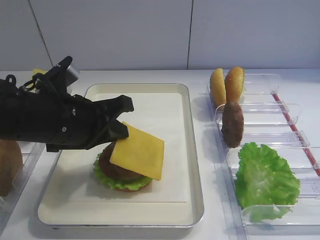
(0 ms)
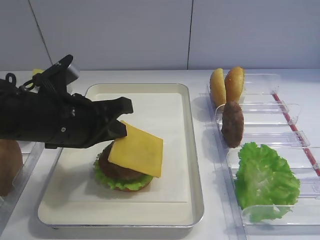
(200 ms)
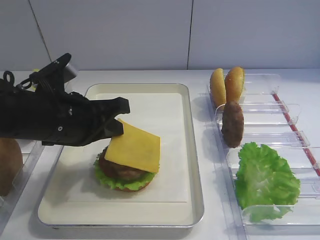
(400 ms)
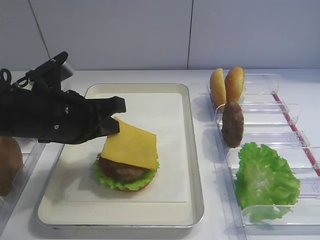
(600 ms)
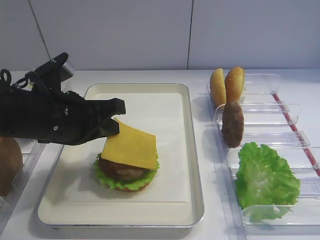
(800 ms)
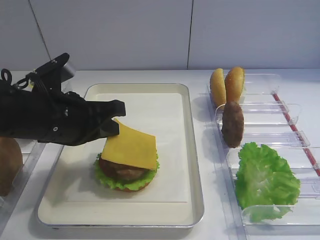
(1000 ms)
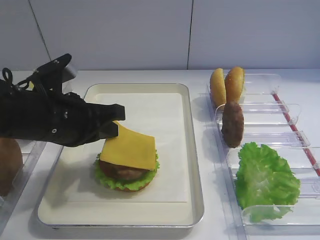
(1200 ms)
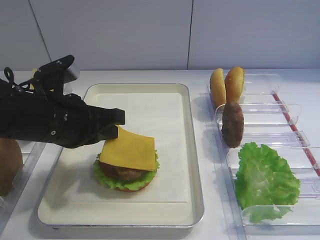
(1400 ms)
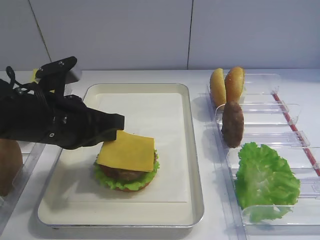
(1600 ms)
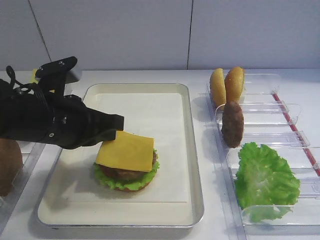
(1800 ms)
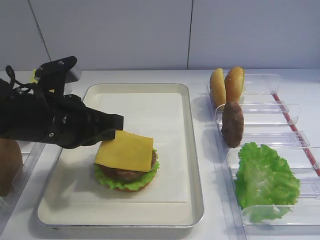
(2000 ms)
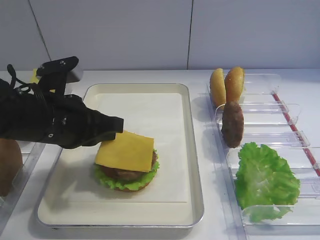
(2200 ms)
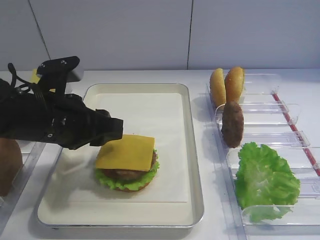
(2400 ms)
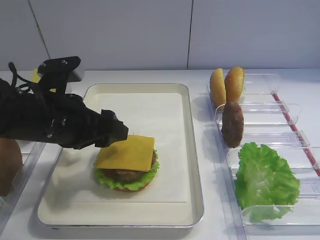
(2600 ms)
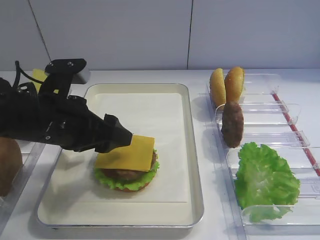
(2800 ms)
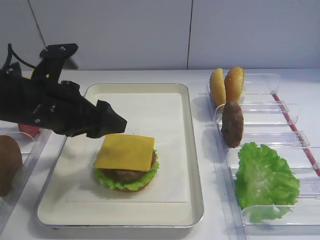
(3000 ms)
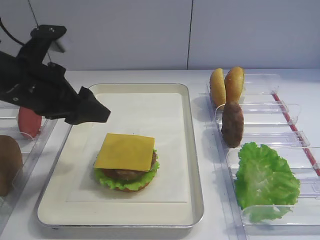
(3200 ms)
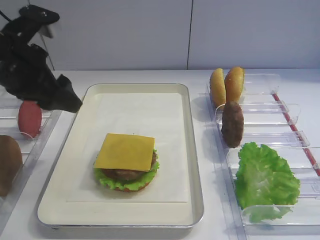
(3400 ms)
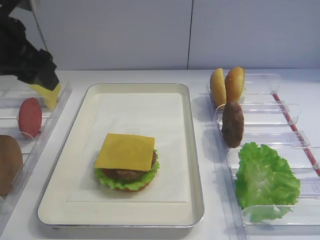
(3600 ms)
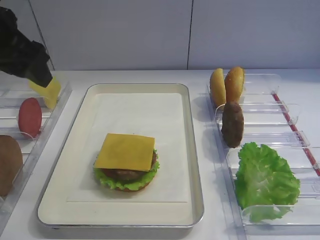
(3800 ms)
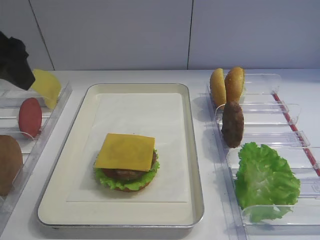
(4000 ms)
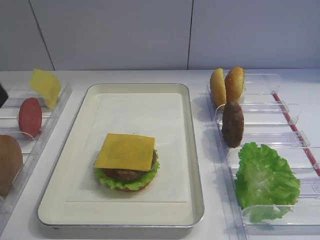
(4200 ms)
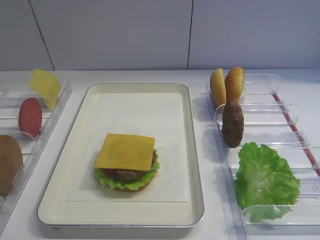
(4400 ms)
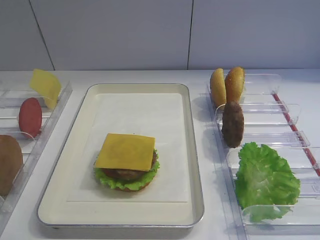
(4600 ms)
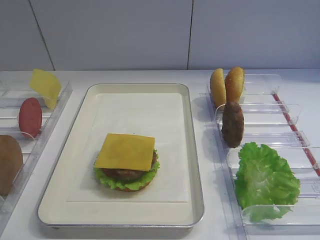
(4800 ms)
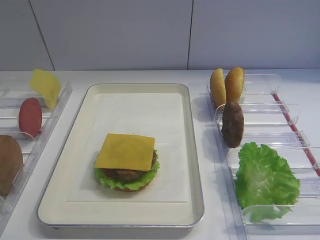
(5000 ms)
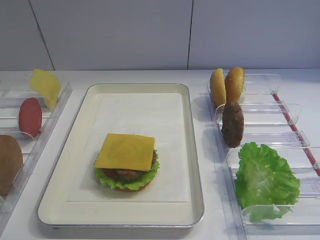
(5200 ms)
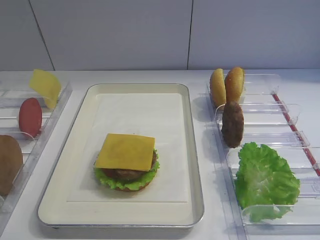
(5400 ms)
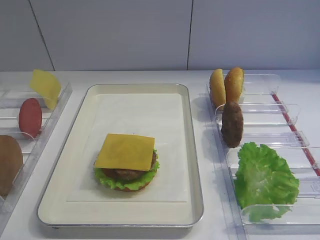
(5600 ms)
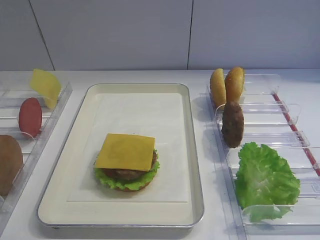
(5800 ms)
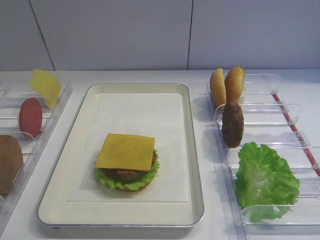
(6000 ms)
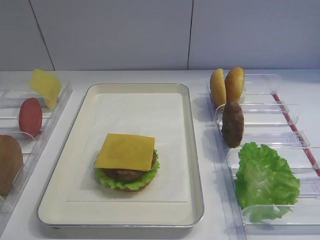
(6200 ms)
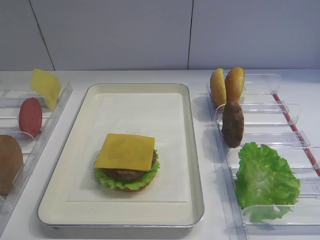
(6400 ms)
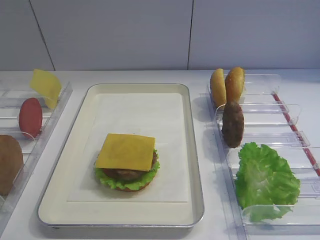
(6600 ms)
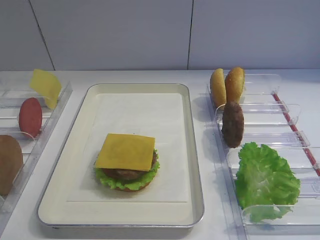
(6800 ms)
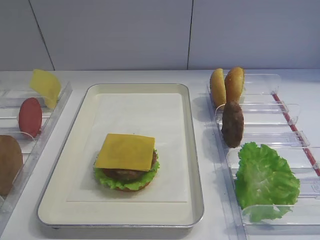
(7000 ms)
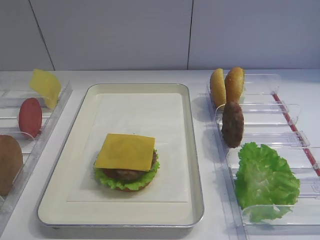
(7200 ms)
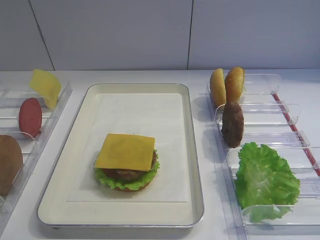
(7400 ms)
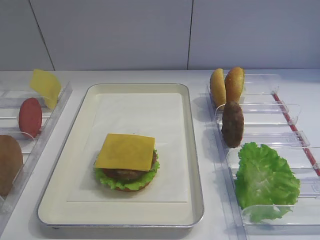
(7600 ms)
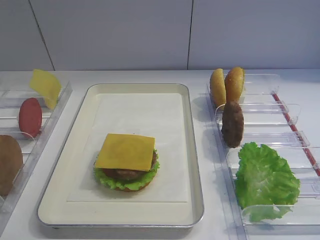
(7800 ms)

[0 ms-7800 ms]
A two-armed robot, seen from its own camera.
Step, 0 ms to 3200 ms: Place the cheese slice on the cutlet with the left gripper.
0 ms to 1600 ms: The grippers stay close to where they were, moving slightly.
1600 ms to 3200 ms: The left gripper moves approximately 5 cm, and opens.
3200 ms to 4600 ms: The left gripper moves backward, to the left and upward, about 25 cm.

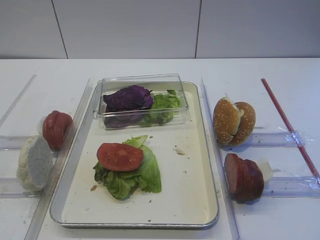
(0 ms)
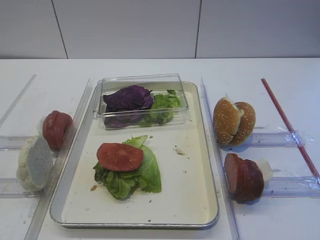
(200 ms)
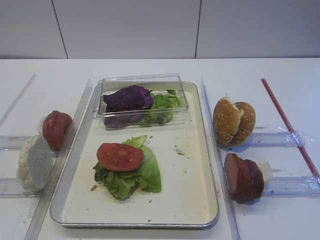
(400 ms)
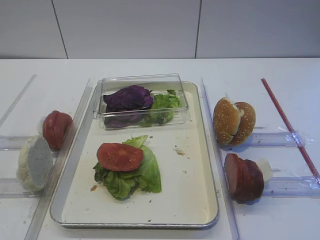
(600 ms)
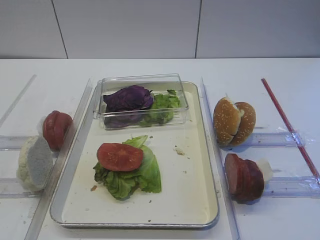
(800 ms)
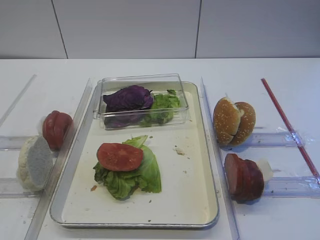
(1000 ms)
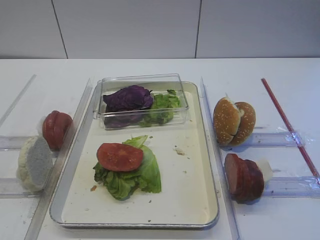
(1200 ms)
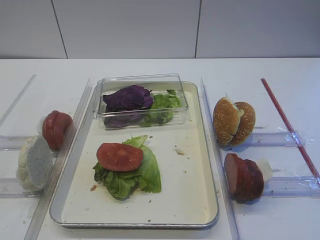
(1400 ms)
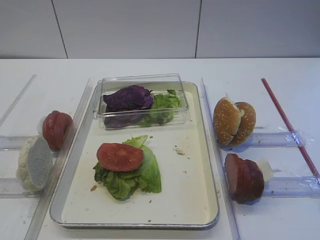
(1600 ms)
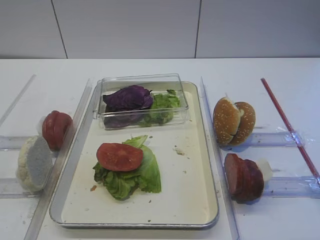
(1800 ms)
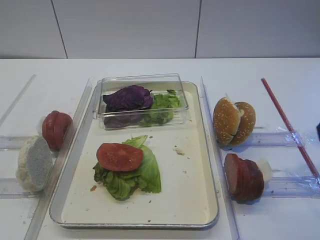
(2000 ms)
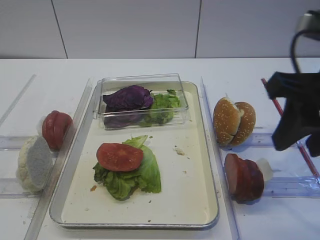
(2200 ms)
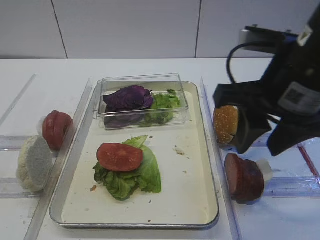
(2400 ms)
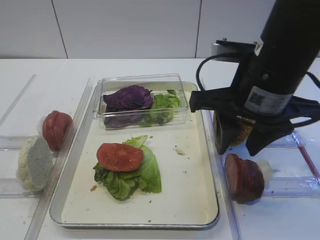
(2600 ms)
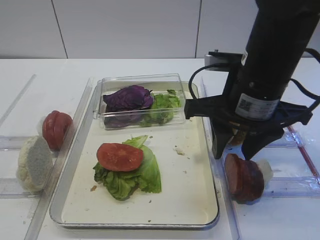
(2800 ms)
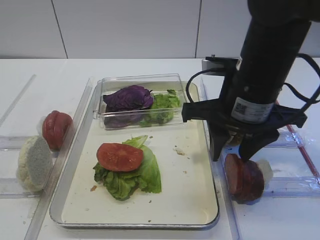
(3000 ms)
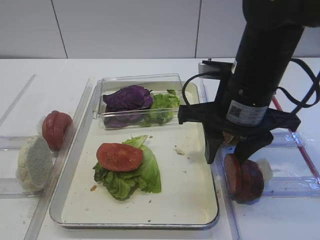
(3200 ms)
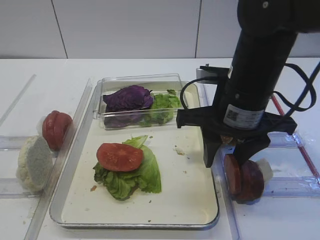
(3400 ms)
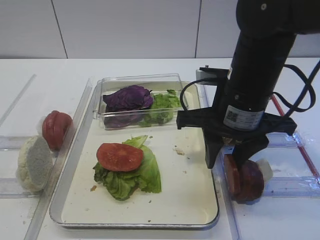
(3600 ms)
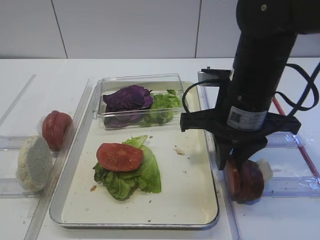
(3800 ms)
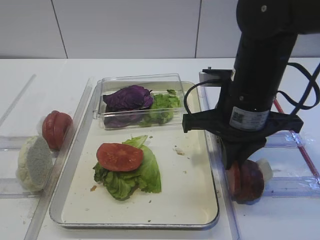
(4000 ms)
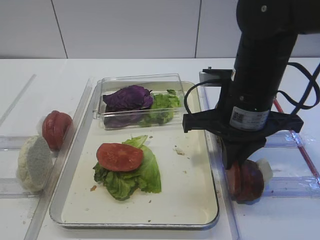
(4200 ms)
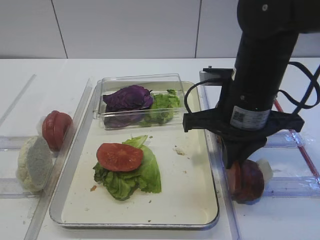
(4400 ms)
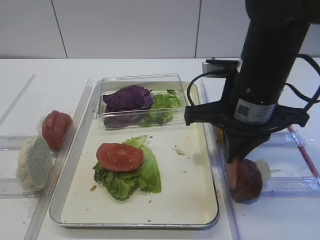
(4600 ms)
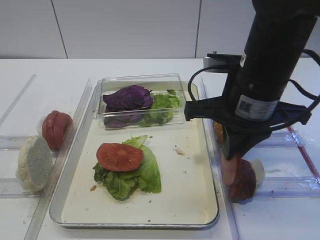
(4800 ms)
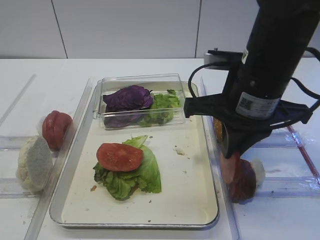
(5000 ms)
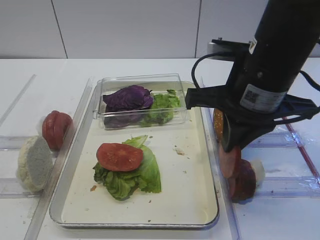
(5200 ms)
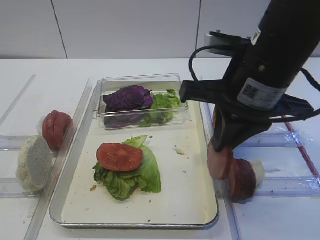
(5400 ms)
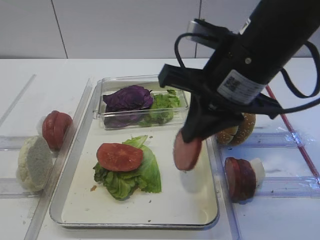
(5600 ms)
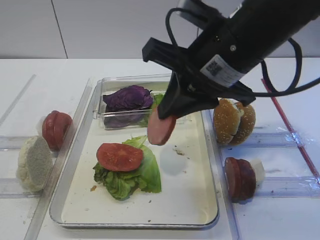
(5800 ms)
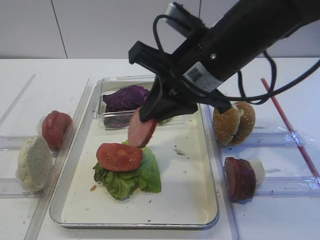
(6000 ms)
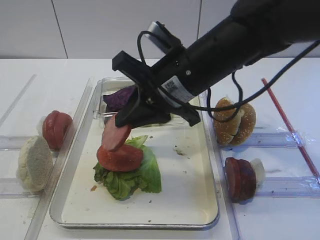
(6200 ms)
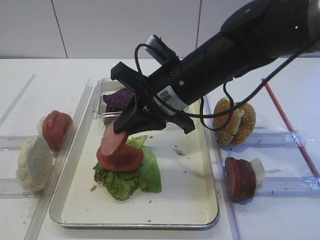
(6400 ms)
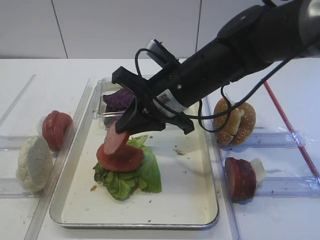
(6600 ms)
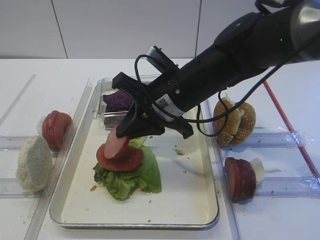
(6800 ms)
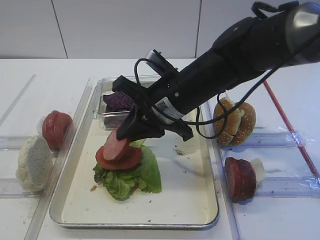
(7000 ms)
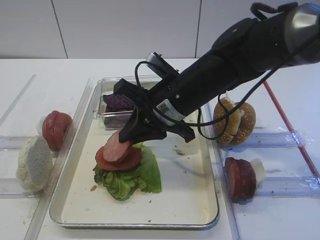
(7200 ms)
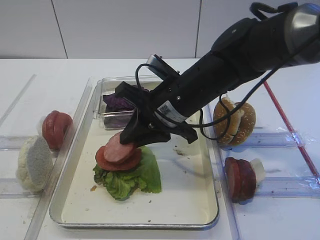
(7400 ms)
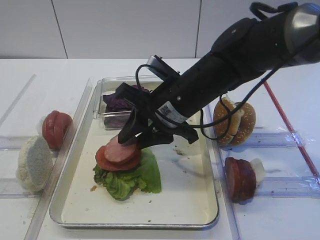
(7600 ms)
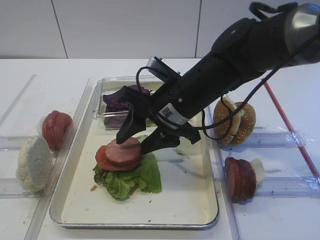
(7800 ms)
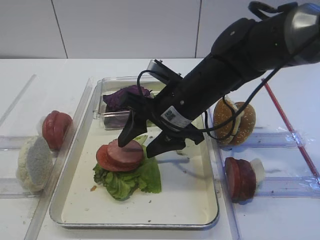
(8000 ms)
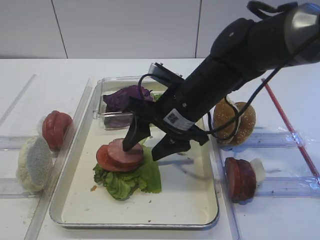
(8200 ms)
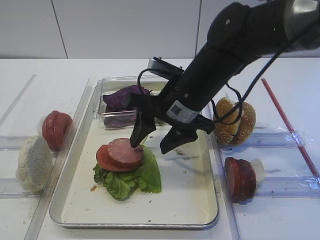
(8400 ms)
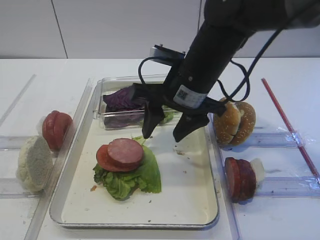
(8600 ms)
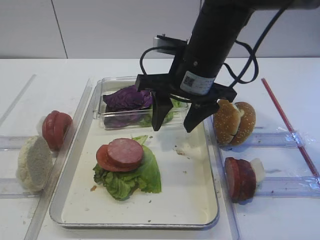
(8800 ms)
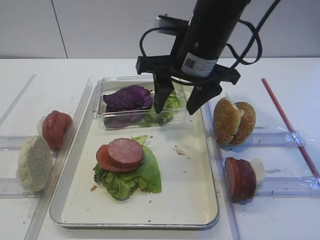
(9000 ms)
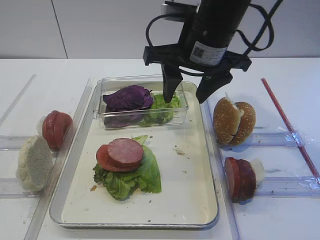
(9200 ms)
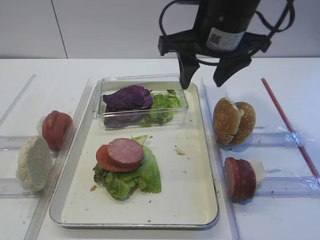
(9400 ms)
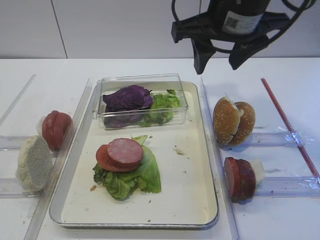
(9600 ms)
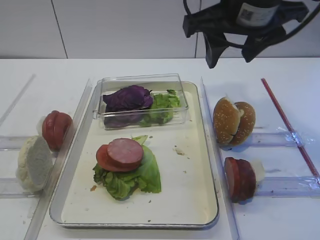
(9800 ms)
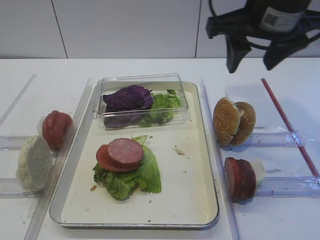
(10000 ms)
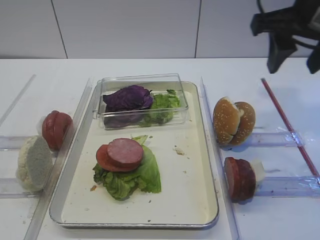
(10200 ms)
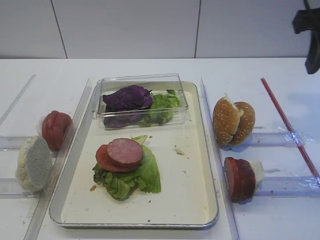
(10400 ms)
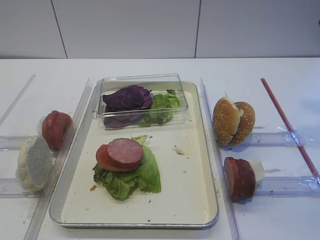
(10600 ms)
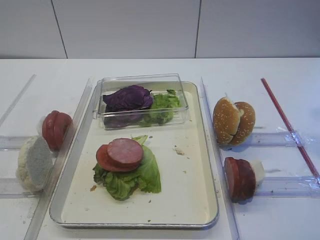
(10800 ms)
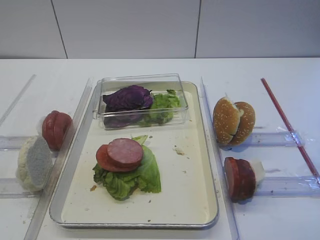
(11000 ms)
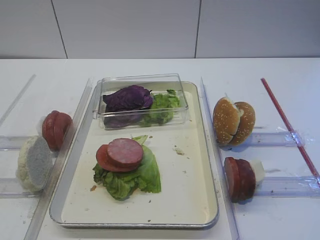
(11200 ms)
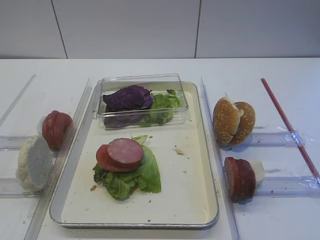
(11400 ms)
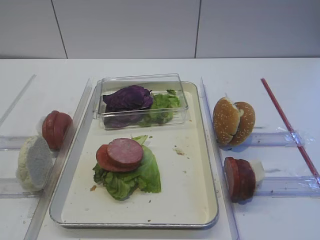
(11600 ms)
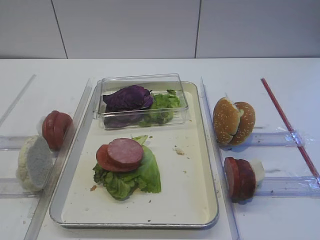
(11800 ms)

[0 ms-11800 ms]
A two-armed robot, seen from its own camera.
Step, 0 ms to 5000 ms: Pick up the cutlet with the right gripper.
Step, 5200 ms to 9000 ms: Place the cutlet on the tomato slice with the right gripper.
1400 ms to 3000 ms: The right gripper moves forward and to the left, about 25 cm.
3000 ms to 4400 ms: The right gripper closes its fingers.
4400 ms to 6000 ms: The right gripper goes some 5 cm upward.
6000 ms to 7400 ms: The right gripper heads downward, covering some 10 cm.
7400 ms to 8800 ms: The right gripper moves approximately 5 cm, and opens.
8800 ms to 10400 ms: The right gripper travels to the right and upward by approximately 20 cm.
10400 ms to 11800 ms: The right gripper is displaced backward by approximately 20 cm.

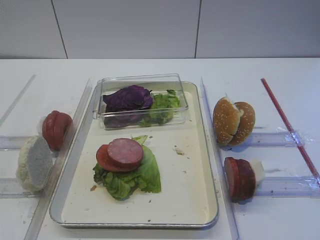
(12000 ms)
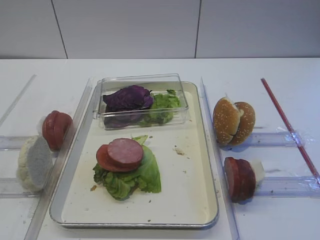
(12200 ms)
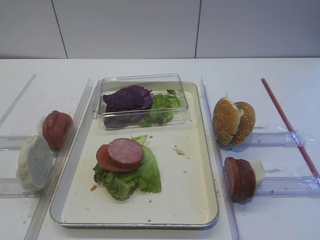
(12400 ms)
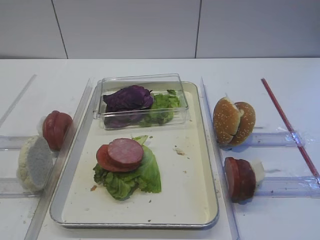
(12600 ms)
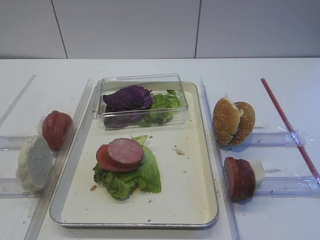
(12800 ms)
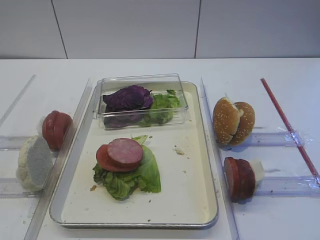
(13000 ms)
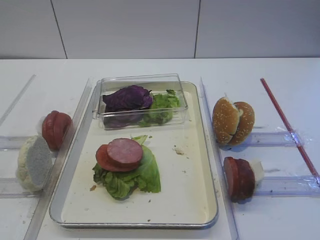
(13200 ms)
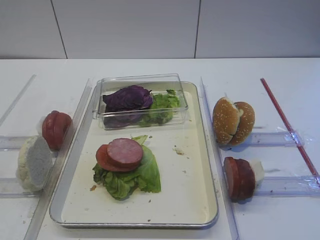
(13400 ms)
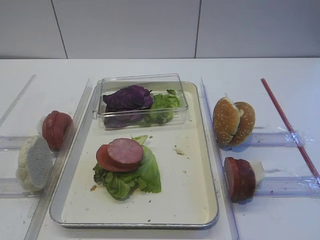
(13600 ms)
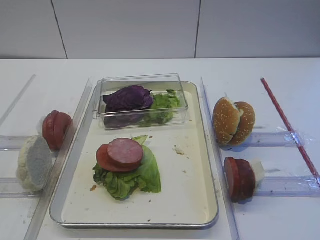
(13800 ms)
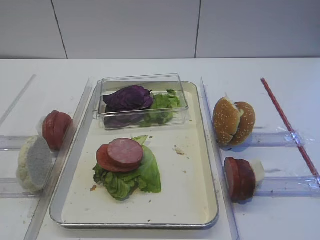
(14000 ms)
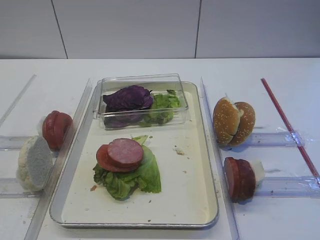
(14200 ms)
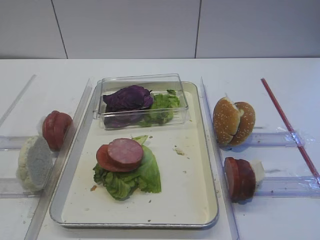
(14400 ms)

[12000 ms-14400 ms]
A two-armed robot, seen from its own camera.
13200 ms to 14400 ms: Both grippers stay about where they are.
